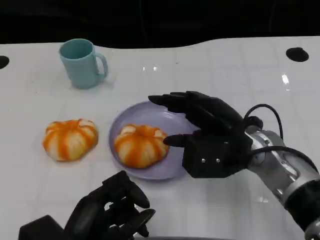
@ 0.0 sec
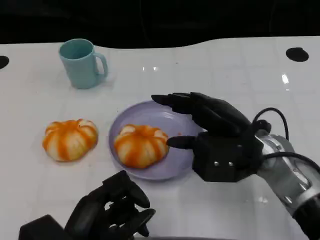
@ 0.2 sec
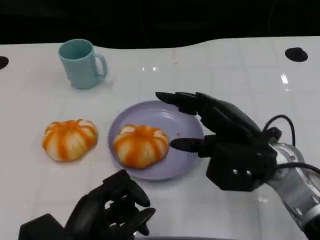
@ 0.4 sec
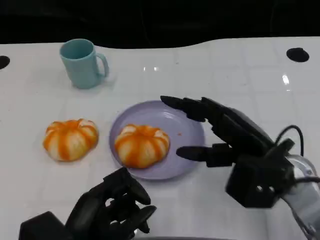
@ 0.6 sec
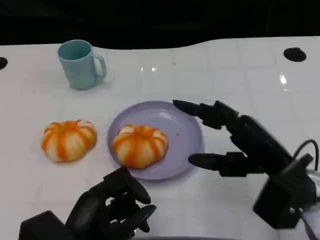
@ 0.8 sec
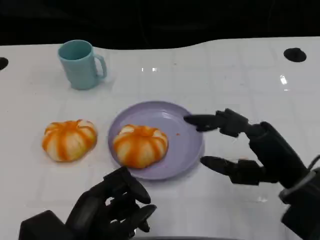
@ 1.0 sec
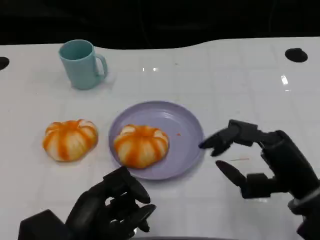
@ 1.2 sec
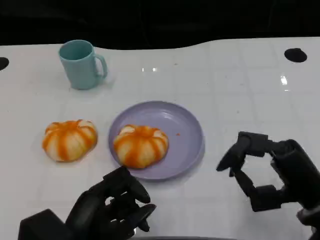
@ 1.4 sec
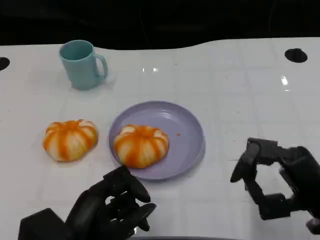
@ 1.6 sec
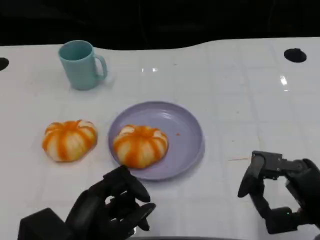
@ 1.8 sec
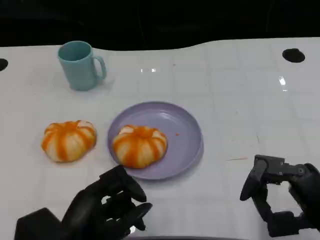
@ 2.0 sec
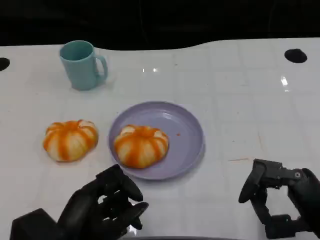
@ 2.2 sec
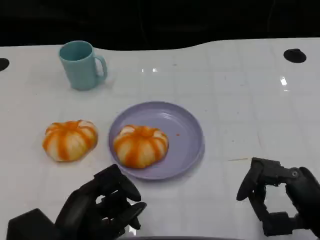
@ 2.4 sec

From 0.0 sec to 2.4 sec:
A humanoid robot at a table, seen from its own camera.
Task of the whole recording: Grasp the bread from the table and place it into the plate.
From 0.0 sec to 1.2 sec: The right hand is displaced backward and to the right by some 10 cm.
From 1.2 sec to 2.4 sec: The right hand ends up about 5 cm from where it was.

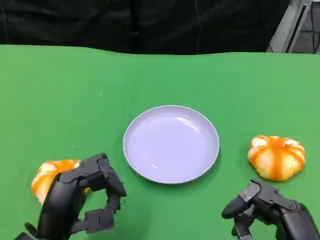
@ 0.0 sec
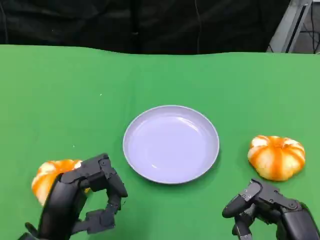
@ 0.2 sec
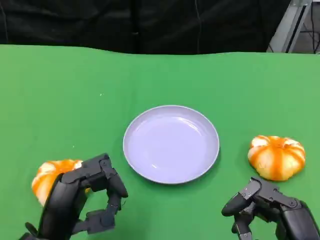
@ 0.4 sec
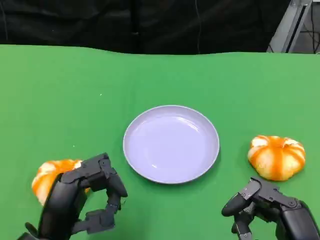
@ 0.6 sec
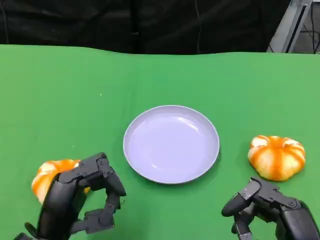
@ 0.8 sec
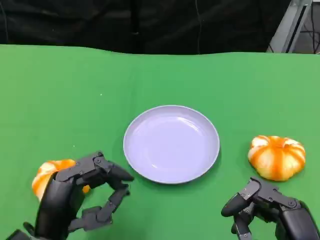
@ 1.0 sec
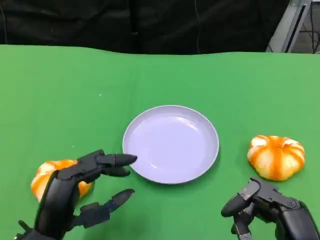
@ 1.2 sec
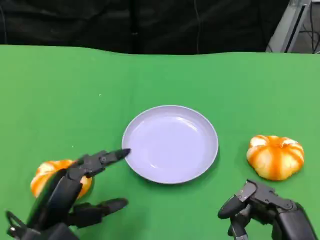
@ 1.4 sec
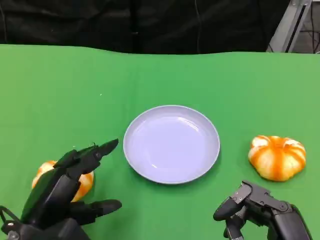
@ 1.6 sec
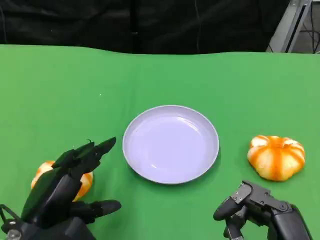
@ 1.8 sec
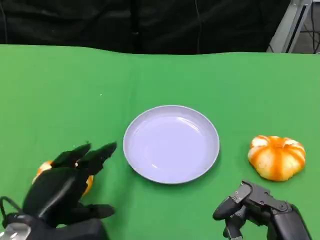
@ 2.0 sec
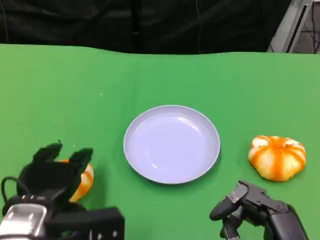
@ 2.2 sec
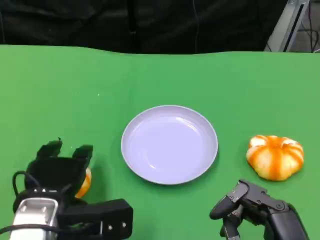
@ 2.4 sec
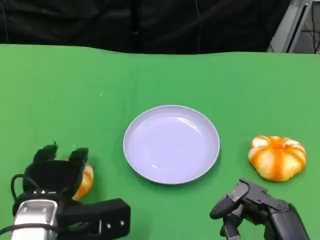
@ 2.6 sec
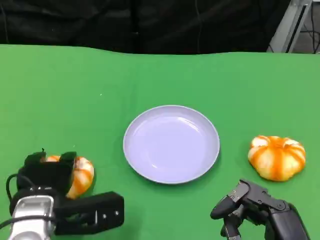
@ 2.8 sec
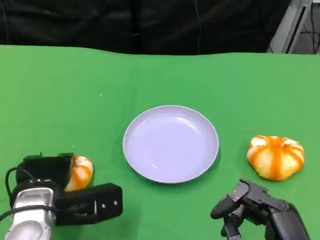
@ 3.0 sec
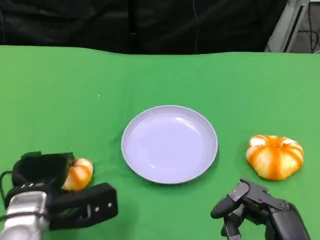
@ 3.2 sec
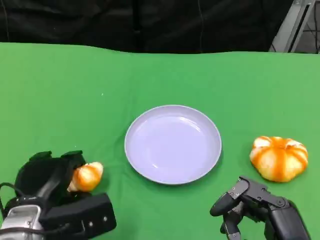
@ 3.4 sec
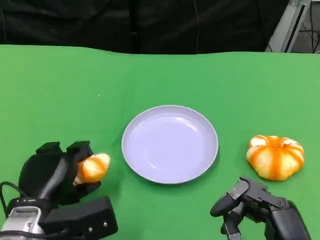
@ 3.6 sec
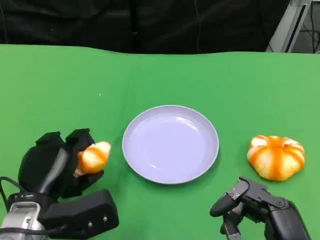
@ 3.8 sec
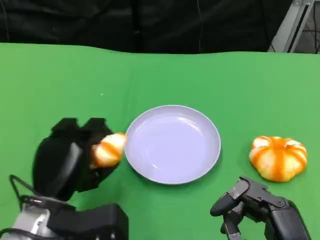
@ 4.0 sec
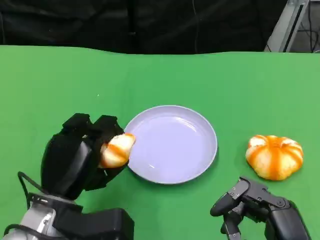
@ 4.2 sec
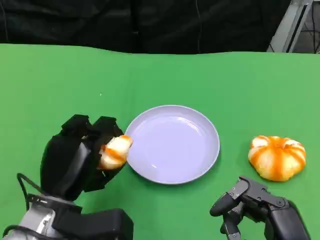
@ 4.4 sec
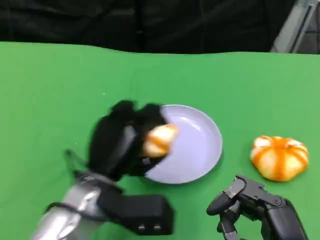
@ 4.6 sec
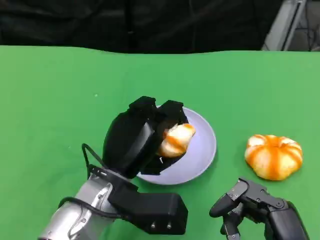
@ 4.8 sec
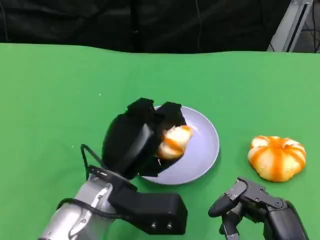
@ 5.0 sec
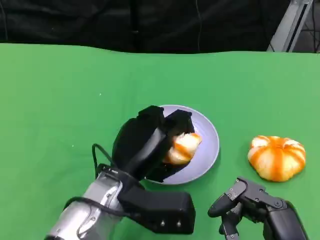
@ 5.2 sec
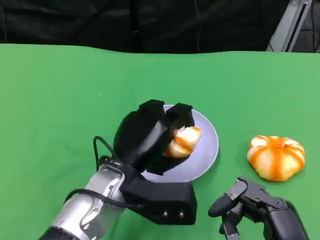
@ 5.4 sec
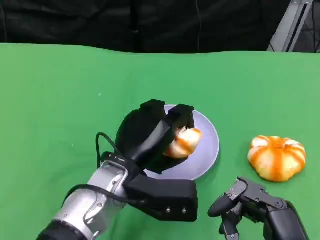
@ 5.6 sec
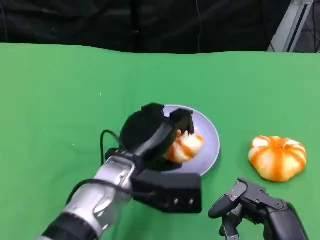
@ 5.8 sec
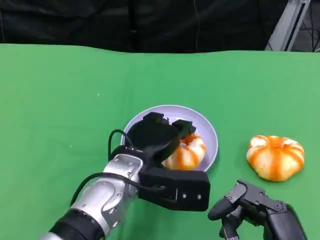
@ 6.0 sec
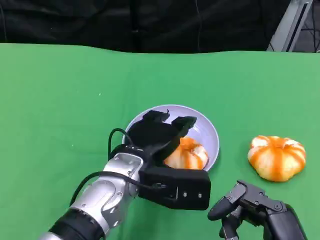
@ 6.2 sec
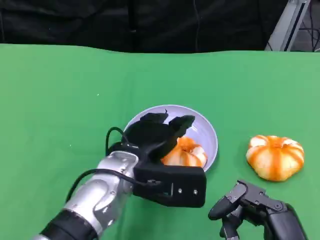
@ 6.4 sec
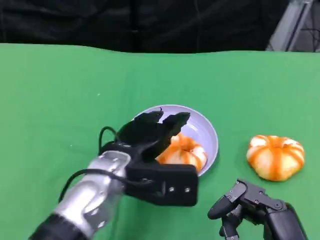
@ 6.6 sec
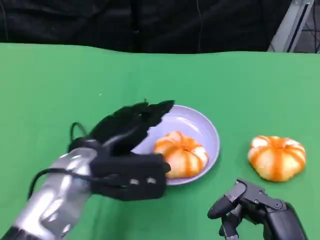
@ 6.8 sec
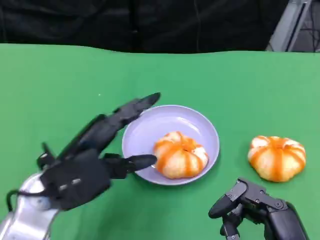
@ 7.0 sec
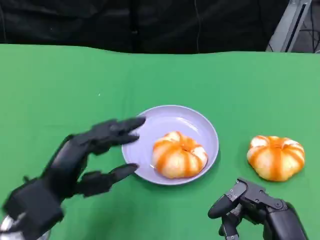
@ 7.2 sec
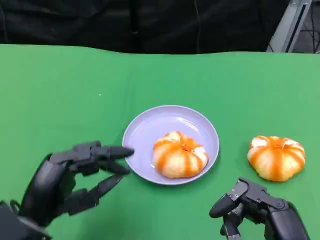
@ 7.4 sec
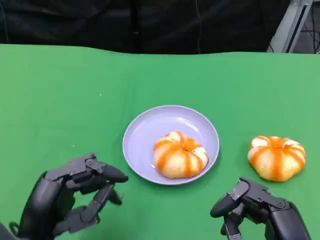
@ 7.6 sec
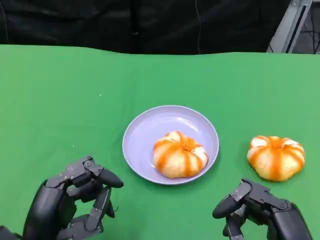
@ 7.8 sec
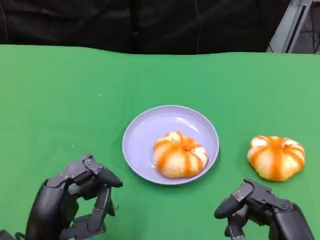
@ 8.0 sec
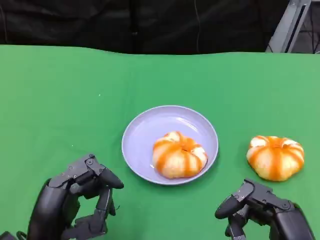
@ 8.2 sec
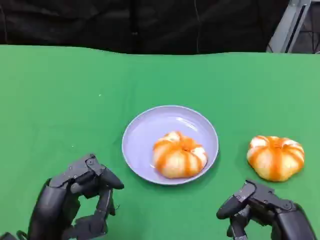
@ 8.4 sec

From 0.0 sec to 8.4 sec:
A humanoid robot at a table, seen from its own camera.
Task of the whole recording: Grasp the bread from the table and place it into the plate.
From 1.4 sec to 2.8 sec: The left hand shifts roughly 5 cm forward.
From 4.2 sec to 5.6 sec: The left hand moves to the right, roughly 10 cm.
From 5.6 sec to 7.0 sec: The left hand moves to the left, about 10 cm.
From 7.0 sec to 8.4 sec: The left hand moves backward, about 10 cm.

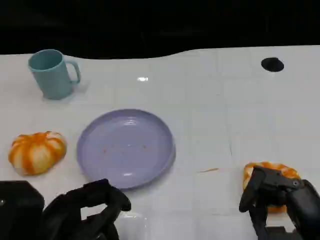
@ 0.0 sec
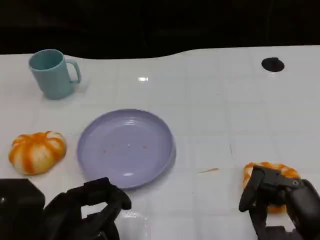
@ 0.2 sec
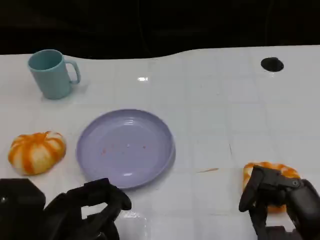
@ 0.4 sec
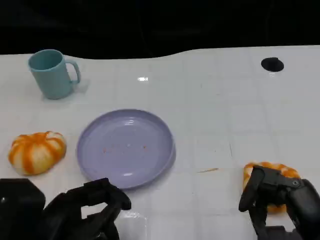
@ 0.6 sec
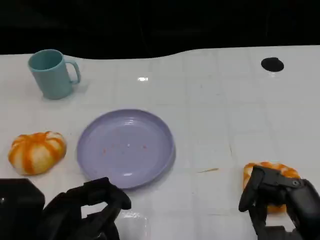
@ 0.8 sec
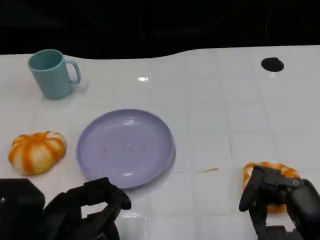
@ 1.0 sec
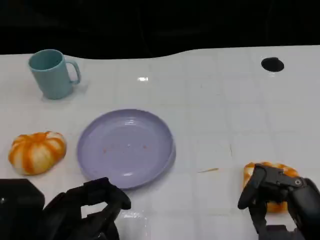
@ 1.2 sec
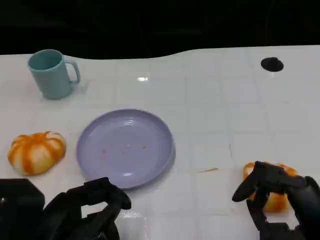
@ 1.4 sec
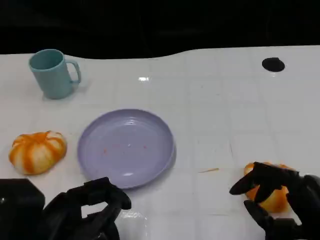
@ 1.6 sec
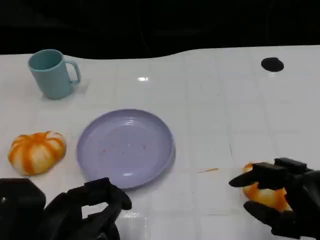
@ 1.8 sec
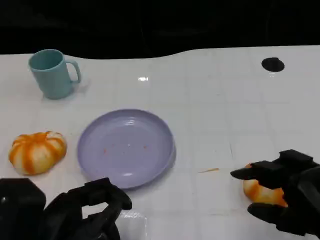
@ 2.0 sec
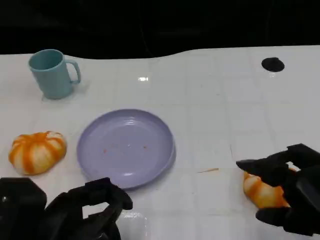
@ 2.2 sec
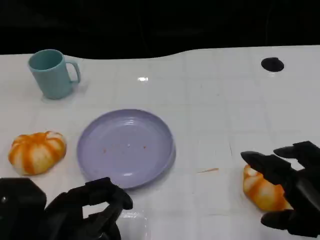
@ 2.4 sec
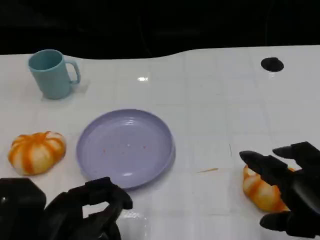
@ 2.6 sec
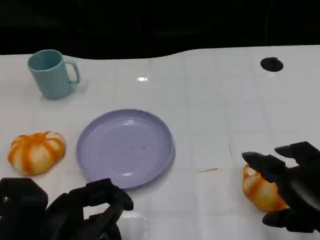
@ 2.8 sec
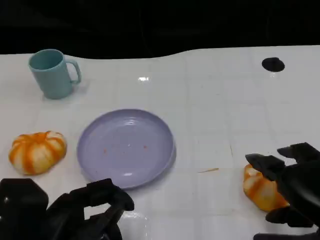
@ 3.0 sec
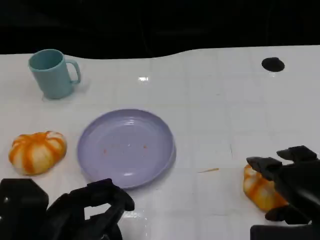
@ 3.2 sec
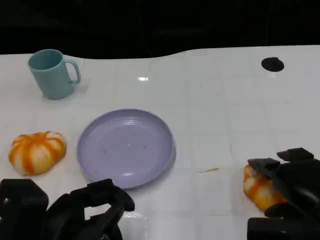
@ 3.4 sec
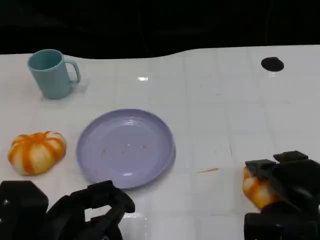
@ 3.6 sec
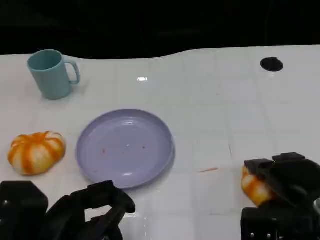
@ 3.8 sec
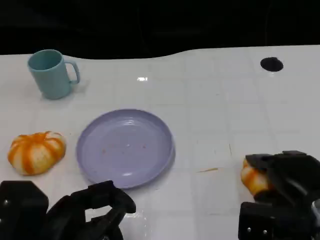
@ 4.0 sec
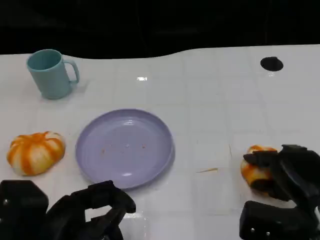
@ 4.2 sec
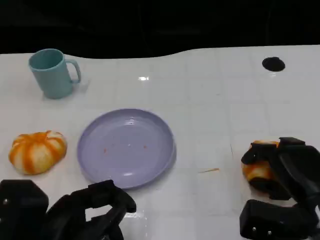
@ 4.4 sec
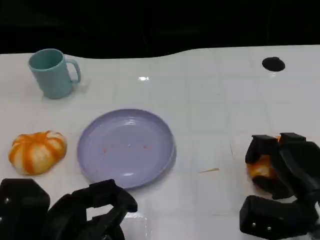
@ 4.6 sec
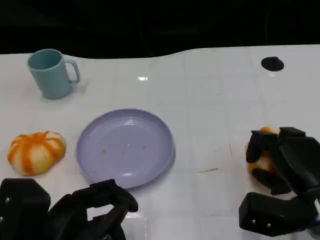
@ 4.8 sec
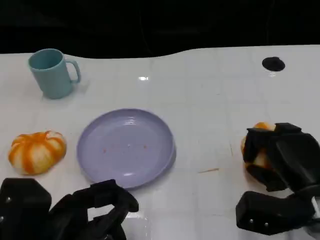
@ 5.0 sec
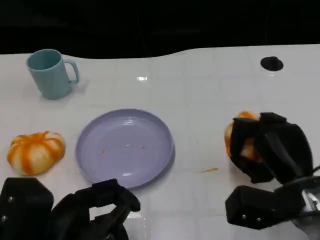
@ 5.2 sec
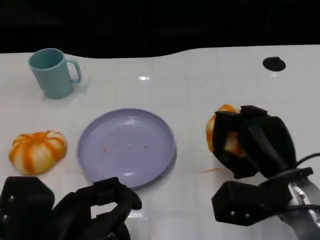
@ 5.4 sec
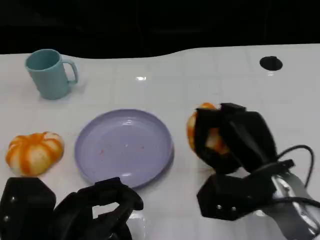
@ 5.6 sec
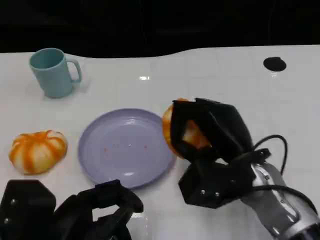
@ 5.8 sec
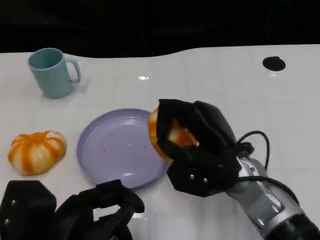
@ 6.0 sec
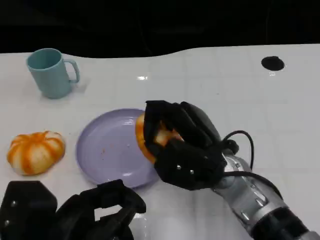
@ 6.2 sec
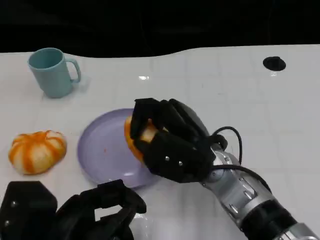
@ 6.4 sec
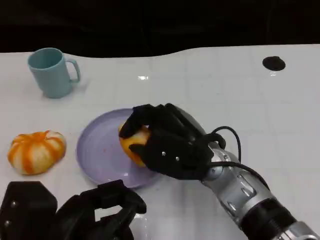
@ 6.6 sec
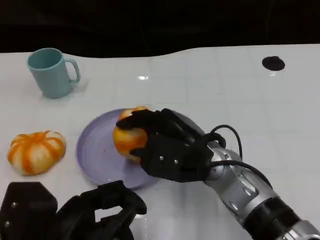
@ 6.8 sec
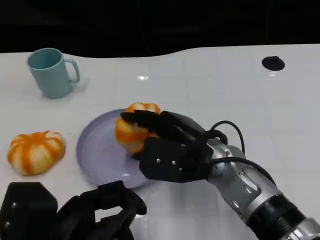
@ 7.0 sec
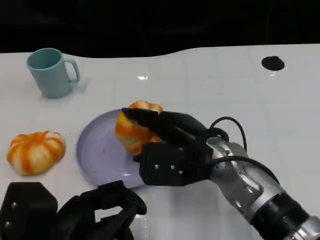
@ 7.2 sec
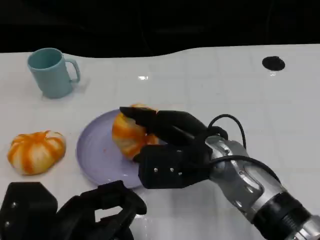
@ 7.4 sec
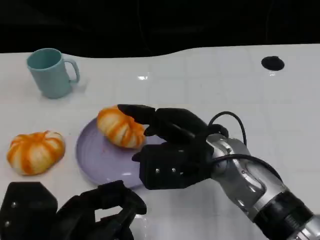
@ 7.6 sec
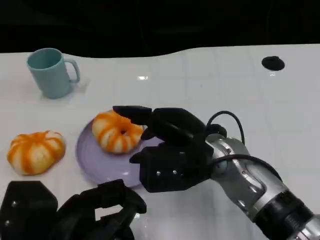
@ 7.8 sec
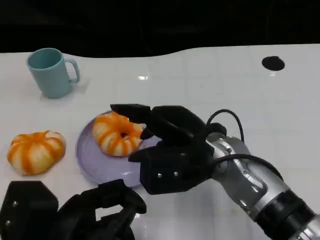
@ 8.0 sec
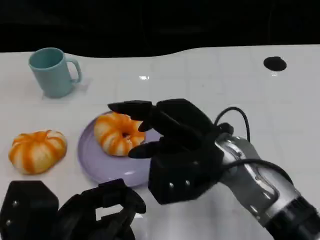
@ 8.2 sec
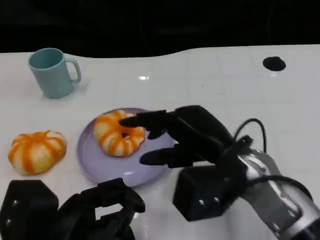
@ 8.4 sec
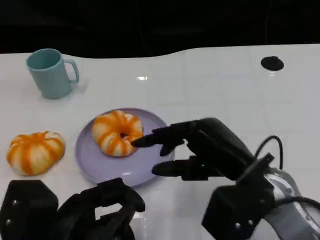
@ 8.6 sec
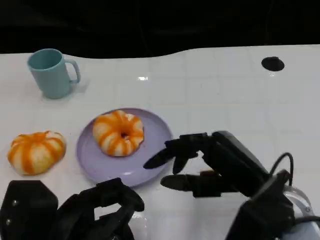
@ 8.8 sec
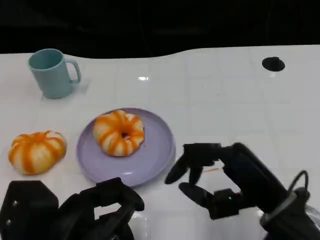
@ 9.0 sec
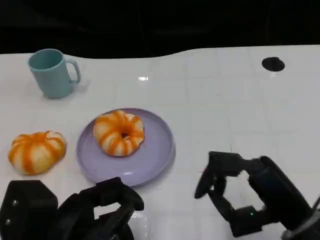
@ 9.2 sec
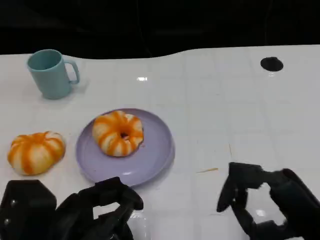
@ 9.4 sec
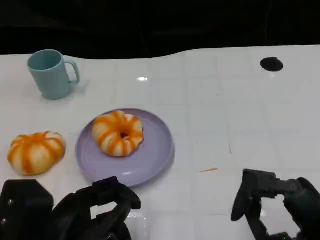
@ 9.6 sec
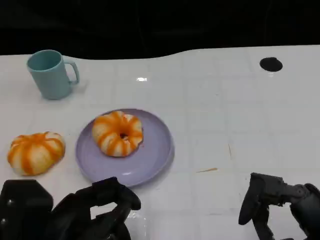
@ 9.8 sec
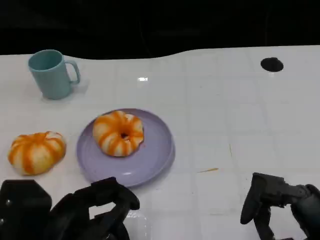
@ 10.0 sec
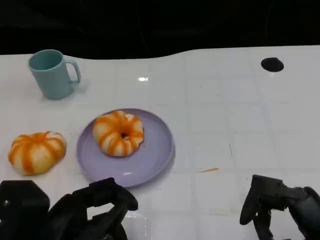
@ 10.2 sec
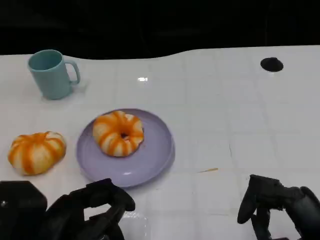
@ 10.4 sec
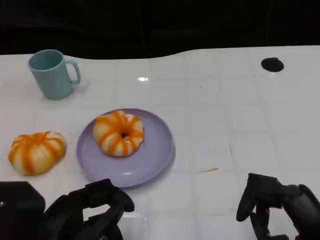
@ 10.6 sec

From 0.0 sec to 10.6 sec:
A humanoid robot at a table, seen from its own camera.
Task of the whole recording: Grasp the bread from the table and place it into the plate.
From 3.0 sec to 4.6 sec: The right hand is displaced downward and forward by approximately 10 cm.
From 4.6 sec to 6.0 sec: The right hand moves to the left and upward, about 15 cm.
From 7.6 sec to 9.0 sec: The right hand goes some 15 cm to the right and backward.
From 9.0 sec to 10.6 sec: The right hand goes some 5 cm backward and to the right.
